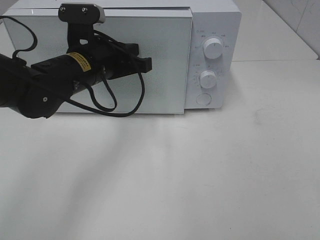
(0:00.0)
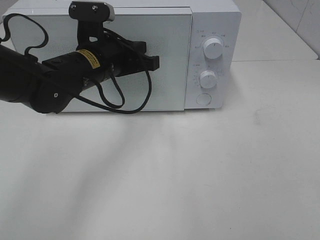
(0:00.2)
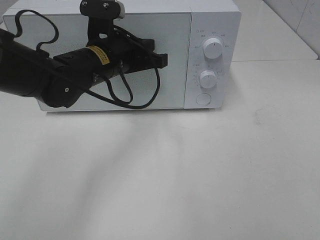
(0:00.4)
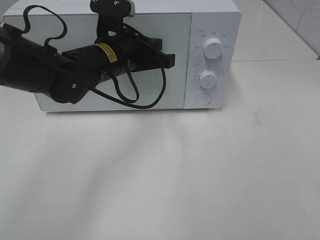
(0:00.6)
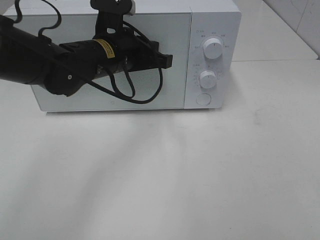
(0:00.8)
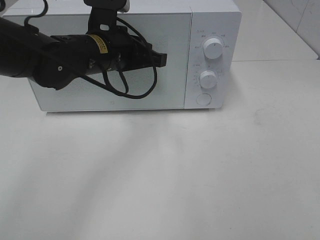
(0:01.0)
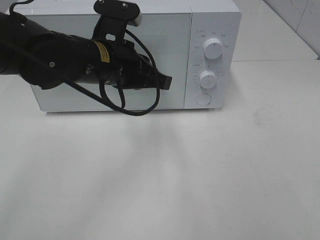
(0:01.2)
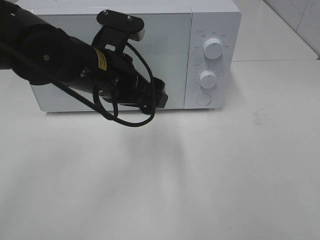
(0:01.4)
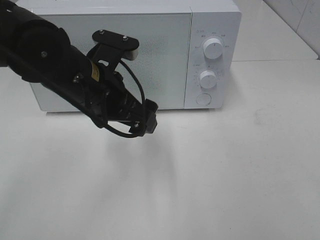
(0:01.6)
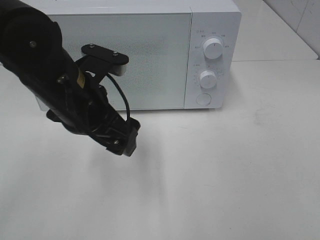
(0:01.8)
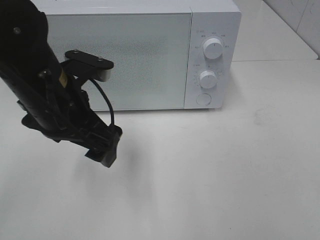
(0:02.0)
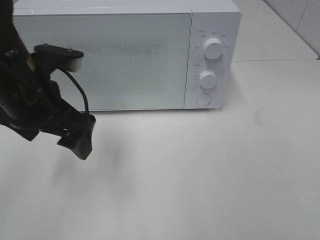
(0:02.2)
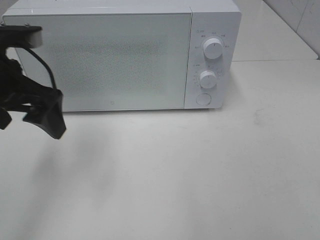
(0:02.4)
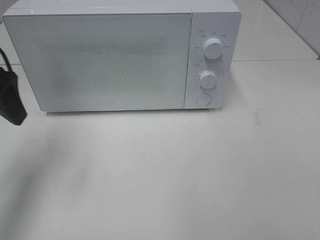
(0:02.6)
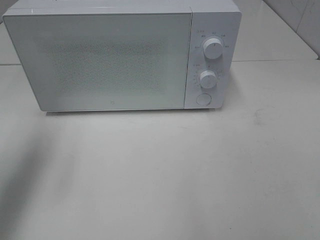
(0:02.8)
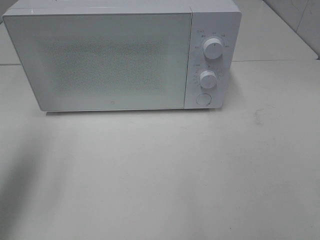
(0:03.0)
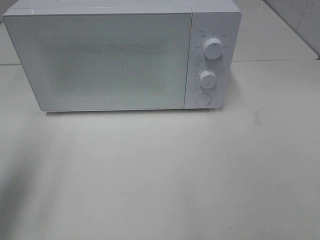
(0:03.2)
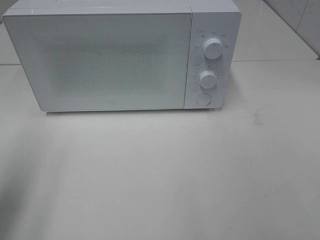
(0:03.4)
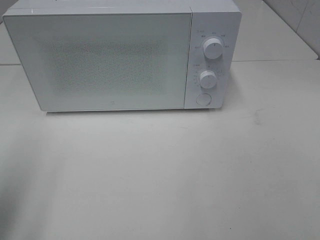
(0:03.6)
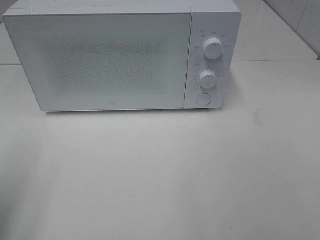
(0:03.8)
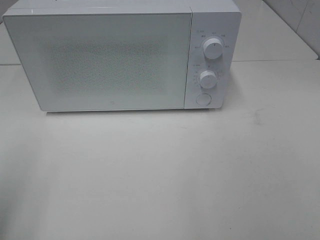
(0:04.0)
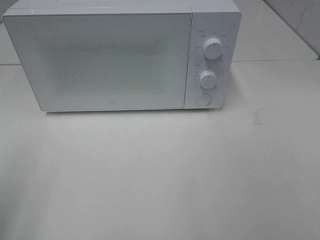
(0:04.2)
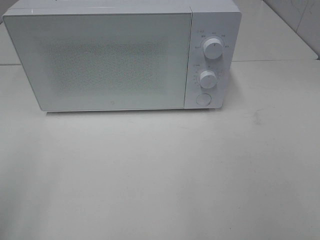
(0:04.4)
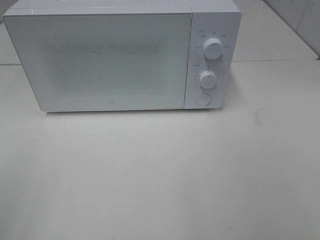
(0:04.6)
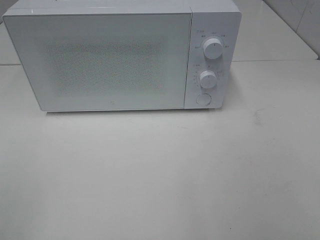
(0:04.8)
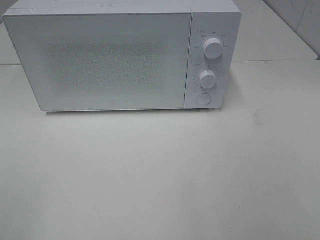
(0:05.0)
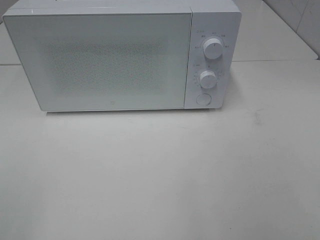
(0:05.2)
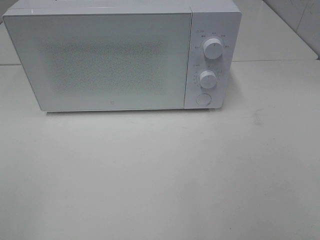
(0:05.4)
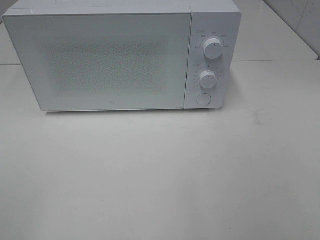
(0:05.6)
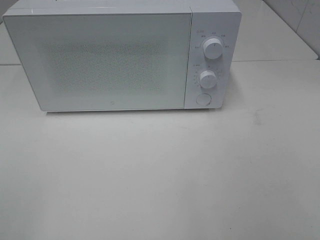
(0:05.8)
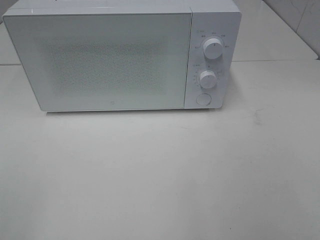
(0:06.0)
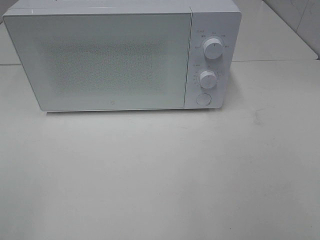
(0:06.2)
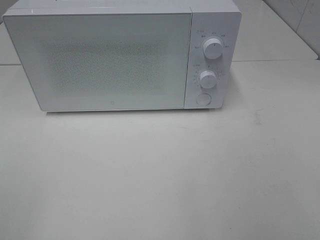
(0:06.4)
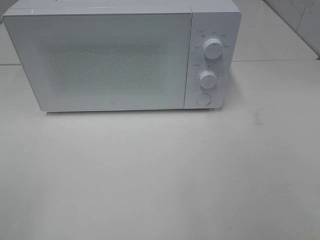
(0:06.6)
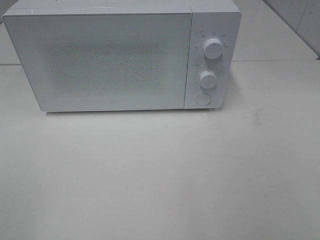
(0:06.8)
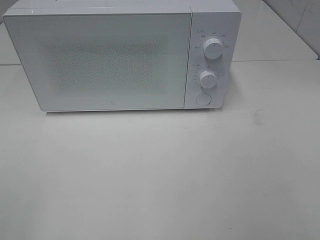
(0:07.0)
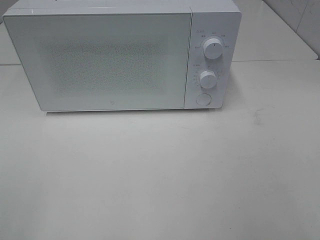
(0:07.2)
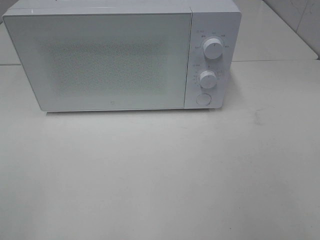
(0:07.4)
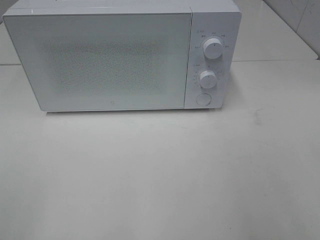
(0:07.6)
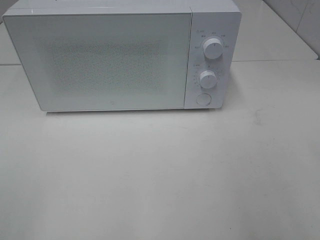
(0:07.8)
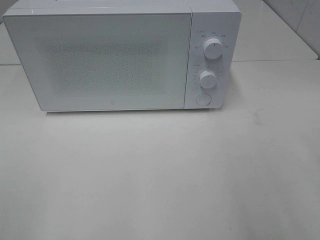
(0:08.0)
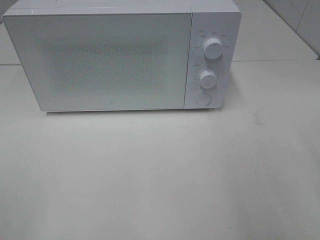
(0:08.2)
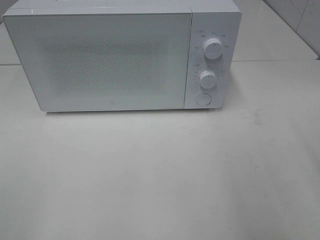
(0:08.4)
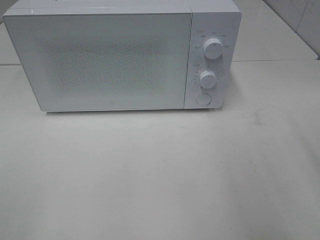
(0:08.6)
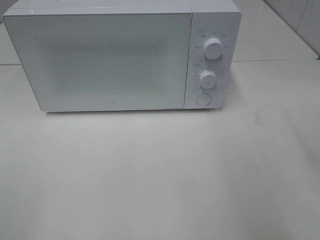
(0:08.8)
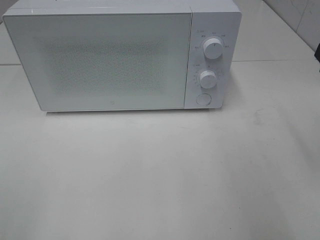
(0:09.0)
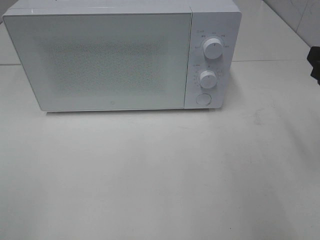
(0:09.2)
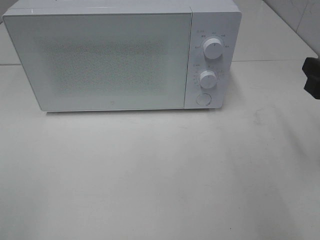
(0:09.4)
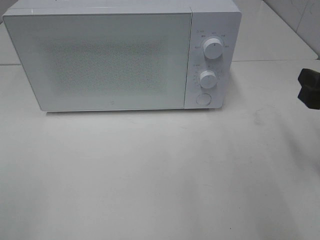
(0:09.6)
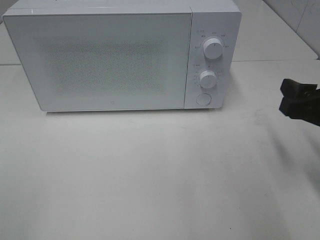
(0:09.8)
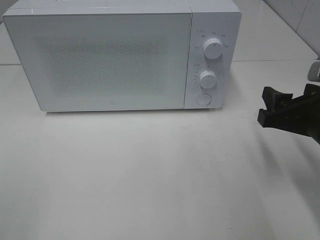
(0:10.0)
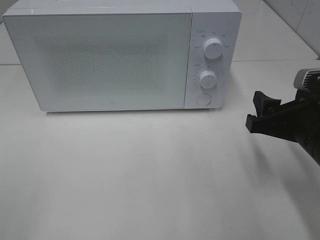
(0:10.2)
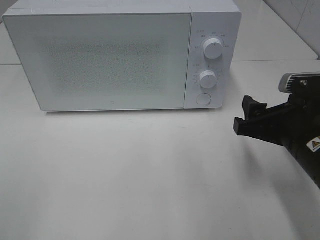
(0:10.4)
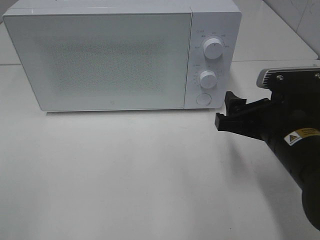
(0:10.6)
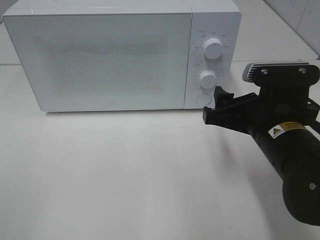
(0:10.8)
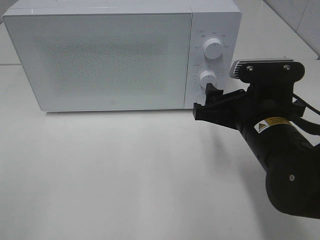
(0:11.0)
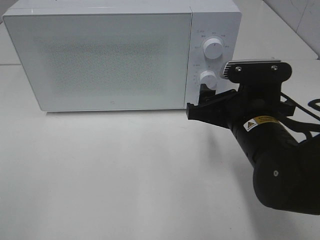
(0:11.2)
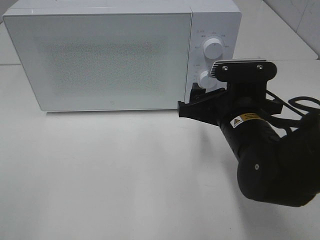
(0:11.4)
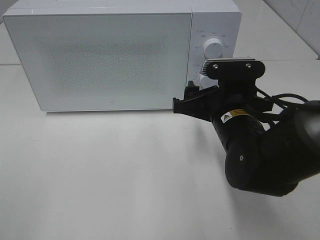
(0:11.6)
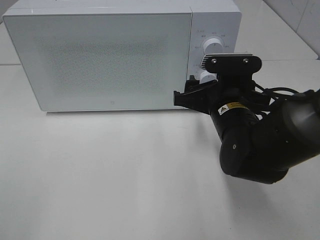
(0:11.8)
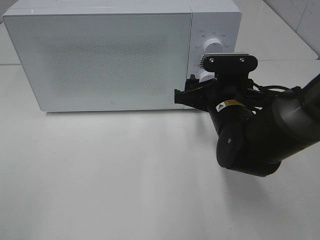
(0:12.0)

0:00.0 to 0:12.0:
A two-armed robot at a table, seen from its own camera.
Task of the whole recording: Heat the burger.
0:00.0 to 0:01.6: The left gripper heads backward, covering approximately 5 cm, and opens up.
0:01.6 to 0:03.0: The left gripper goes roughly 25 cm to the left and upward.
0:03.0 to 0:04.4: The left gripper moves backward, about 15 cm.
0:09.0 to 0:10.4: The right gripper shifts approximately 10 cm downward and to the left.
0:10.4 to 0:12.0: The right gripper moves forward and to the left, some 15 cm.

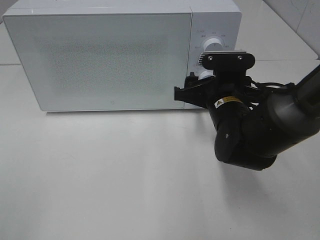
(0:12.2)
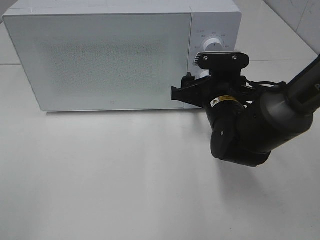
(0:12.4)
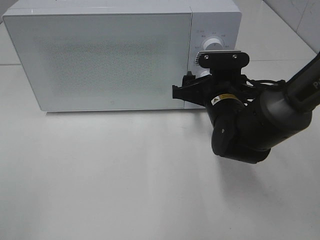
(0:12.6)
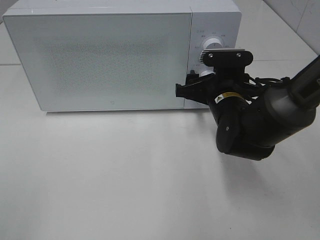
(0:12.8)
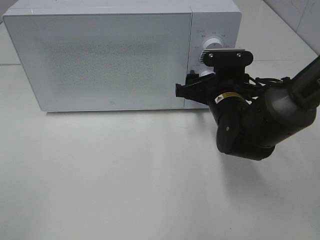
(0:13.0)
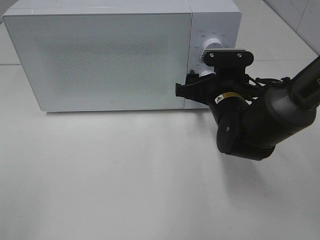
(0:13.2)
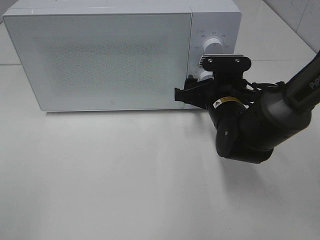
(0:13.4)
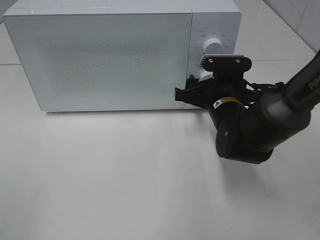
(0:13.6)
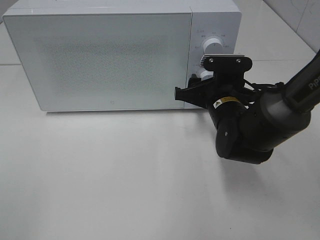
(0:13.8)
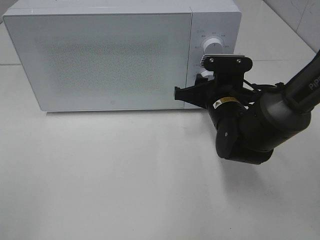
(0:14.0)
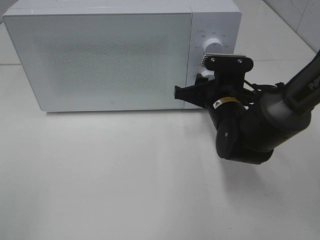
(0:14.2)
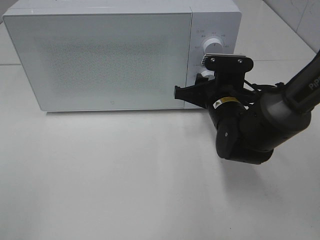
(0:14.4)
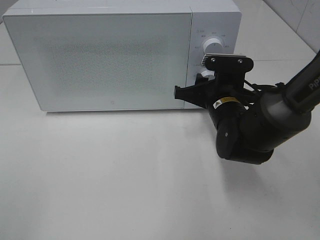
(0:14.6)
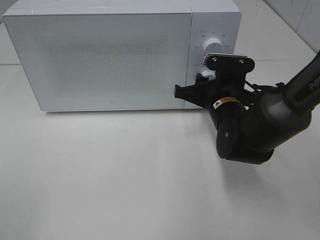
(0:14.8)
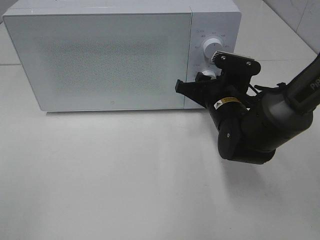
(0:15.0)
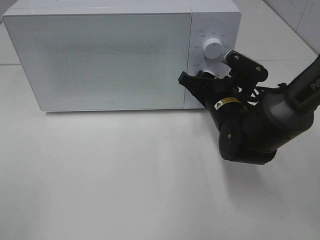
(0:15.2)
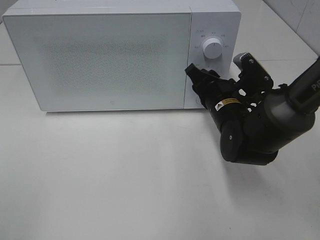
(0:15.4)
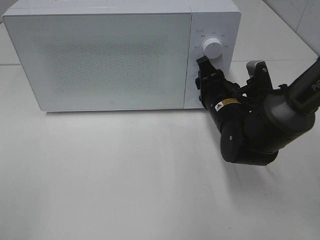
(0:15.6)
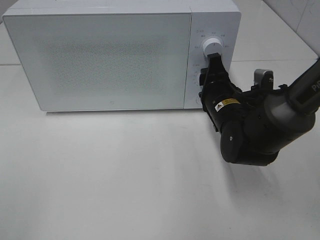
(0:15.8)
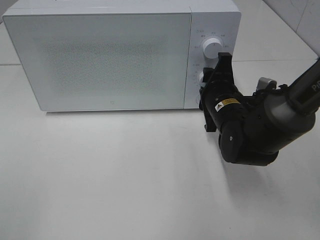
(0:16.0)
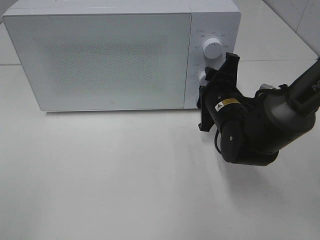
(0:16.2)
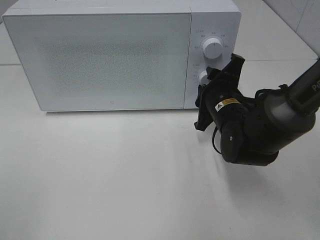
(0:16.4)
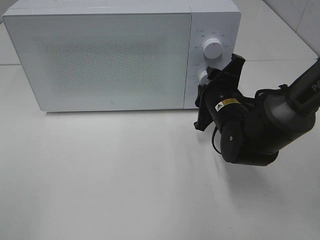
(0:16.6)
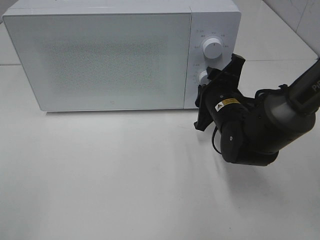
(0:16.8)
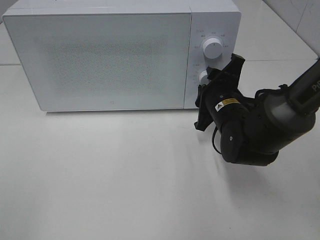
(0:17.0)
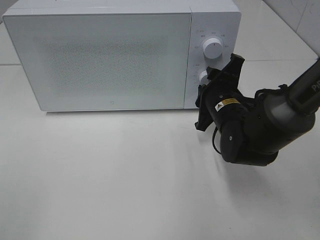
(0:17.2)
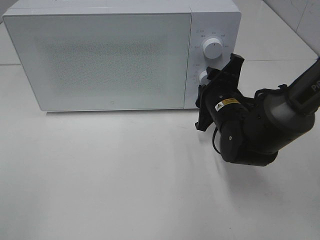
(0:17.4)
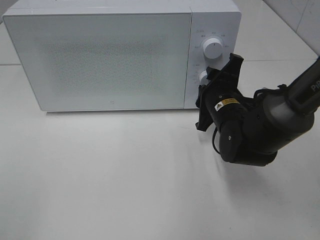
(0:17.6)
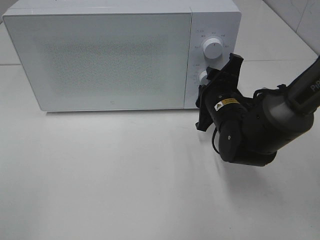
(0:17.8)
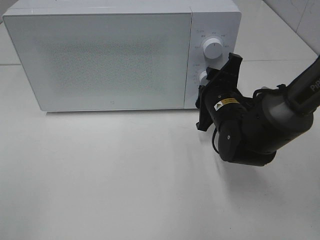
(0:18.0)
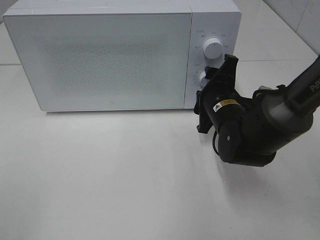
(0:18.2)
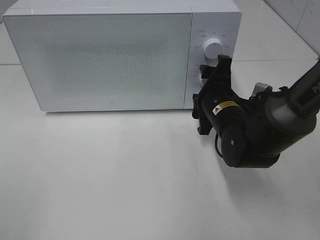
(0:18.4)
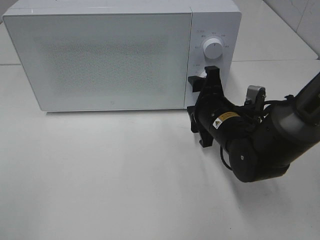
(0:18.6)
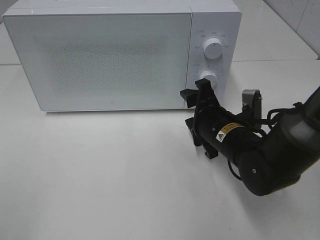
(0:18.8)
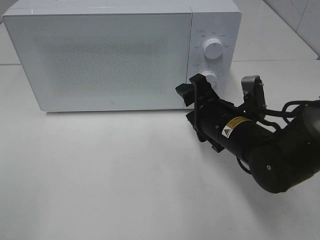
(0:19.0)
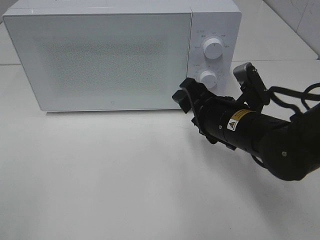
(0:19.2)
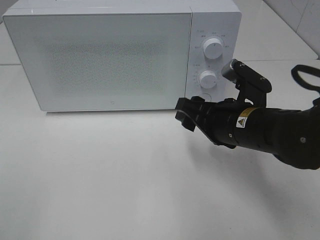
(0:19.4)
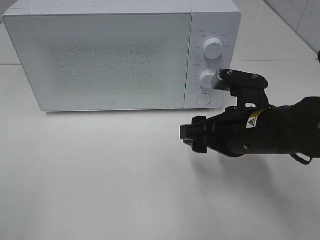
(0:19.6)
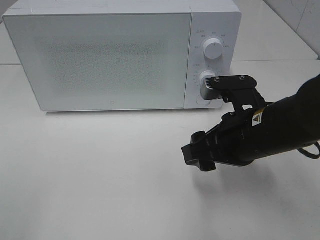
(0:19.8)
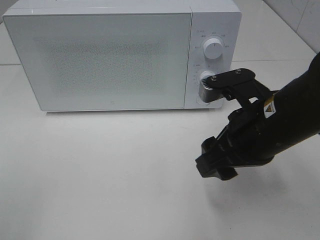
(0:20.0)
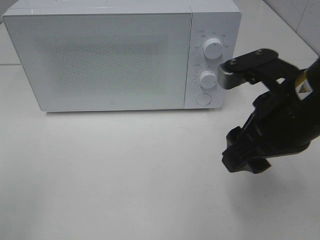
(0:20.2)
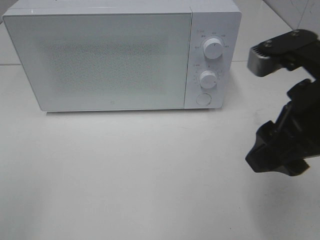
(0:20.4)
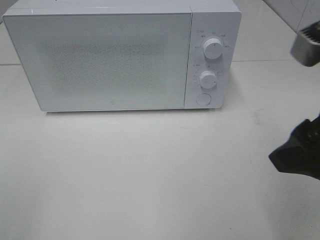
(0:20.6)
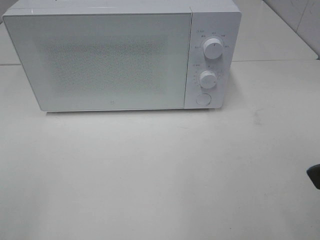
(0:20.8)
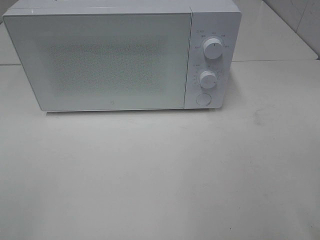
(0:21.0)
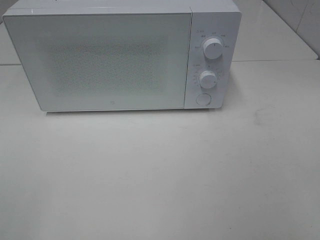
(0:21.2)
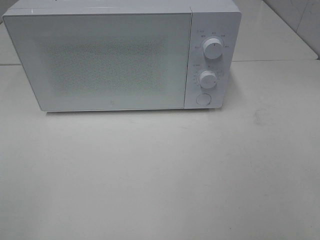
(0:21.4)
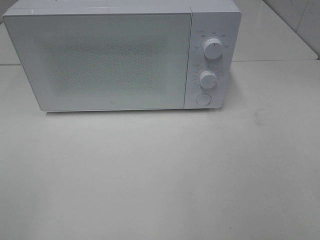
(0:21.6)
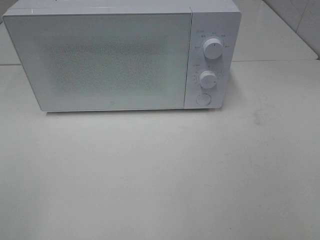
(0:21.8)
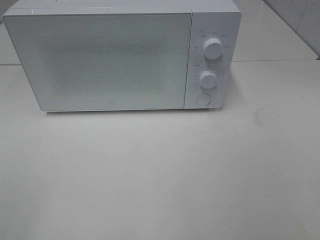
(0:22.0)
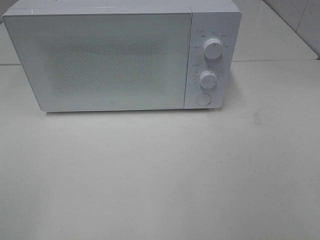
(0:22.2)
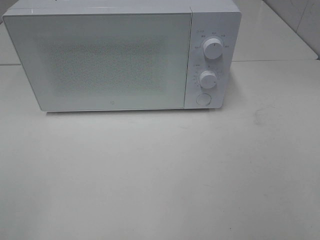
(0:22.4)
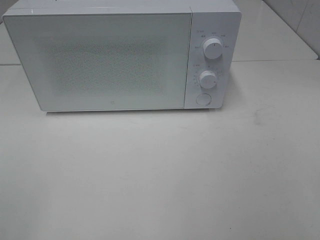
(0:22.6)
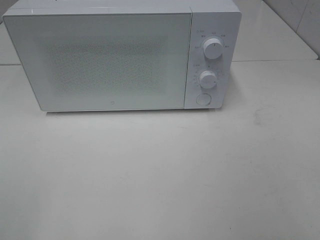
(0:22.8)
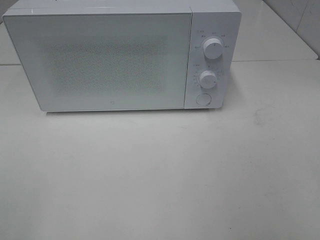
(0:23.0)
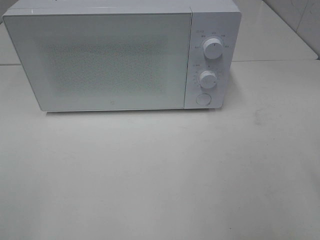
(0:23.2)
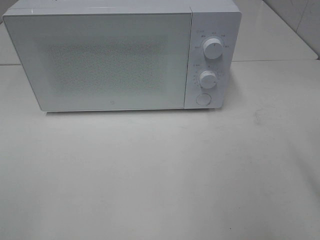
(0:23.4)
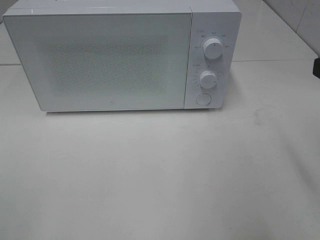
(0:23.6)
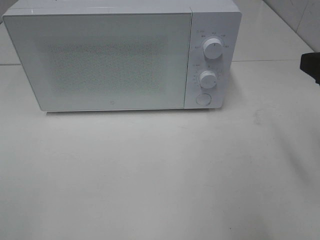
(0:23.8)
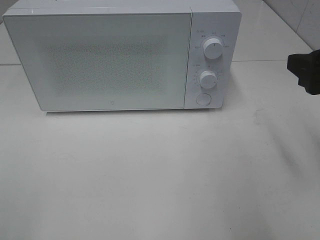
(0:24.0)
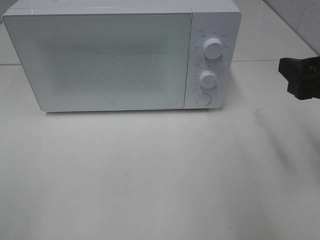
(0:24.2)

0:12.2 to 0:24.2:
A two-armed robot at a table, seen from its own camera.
Task of the whole recording: Heat the burger.
Step, 0:12.2 to 0:18.2: Right hand: twist timer button.
0:12.2 to 0:13.8: There are only small adjustments of the grippers.
0:16.6 to 0:18.2: The grippers make only small movements.
0:18.2 to 0:19.8: The right gripper shifts approximately 10 cm backward and upward.
0:19.8 to 0:21.2: The right gripper heads backward, to the right and upward, covering some 25 cm.
0:22.6 to 0:24.2: The right gripper travels forward by about 20 cm.
